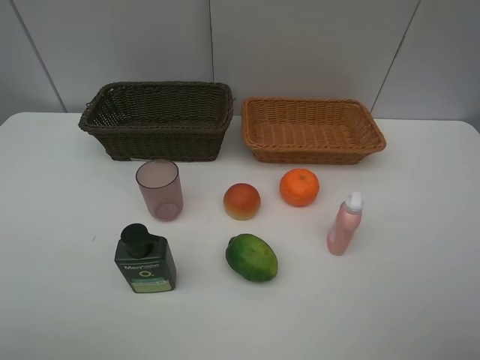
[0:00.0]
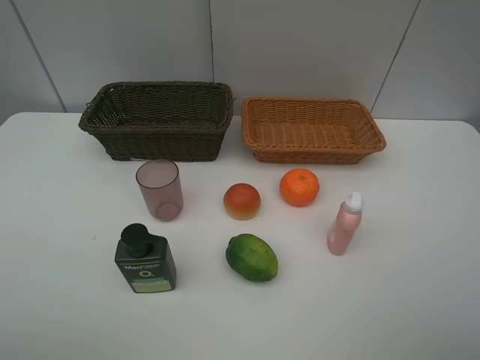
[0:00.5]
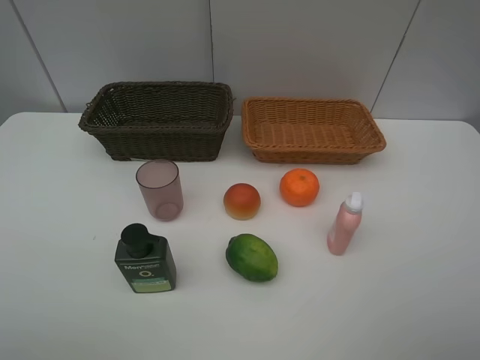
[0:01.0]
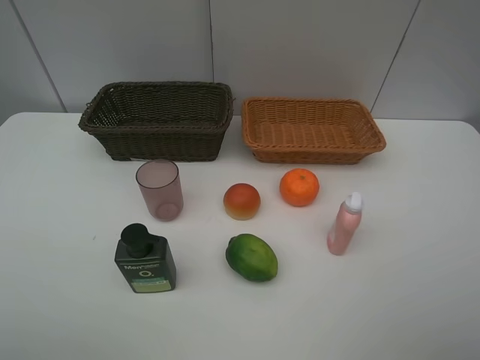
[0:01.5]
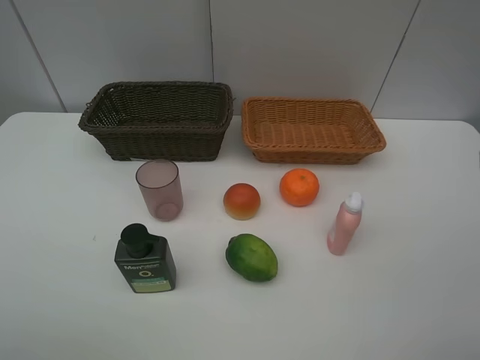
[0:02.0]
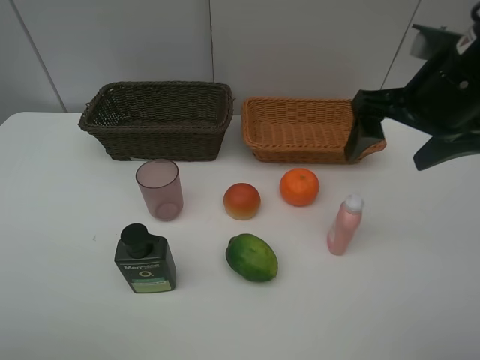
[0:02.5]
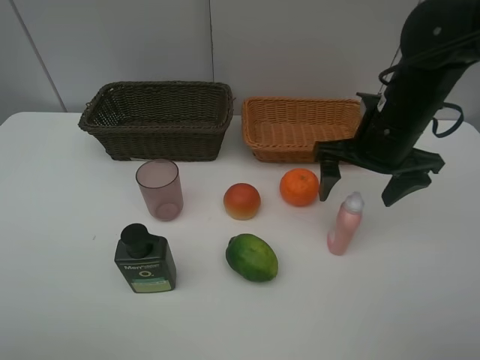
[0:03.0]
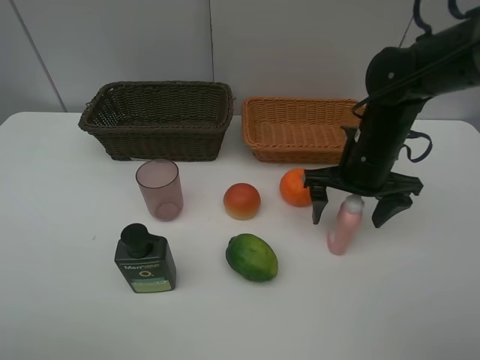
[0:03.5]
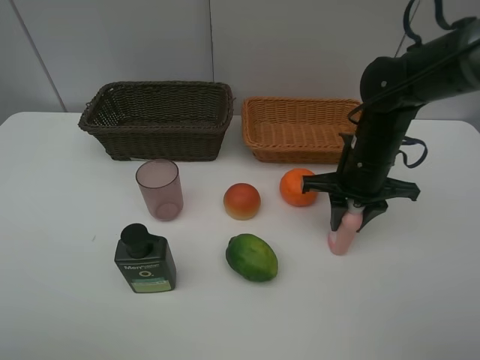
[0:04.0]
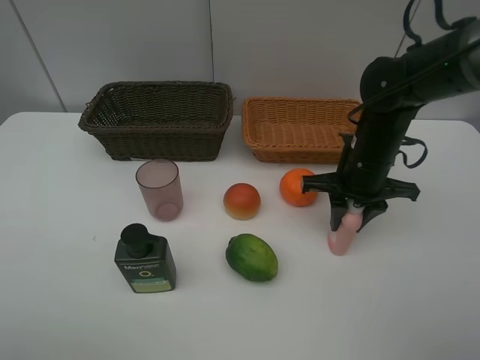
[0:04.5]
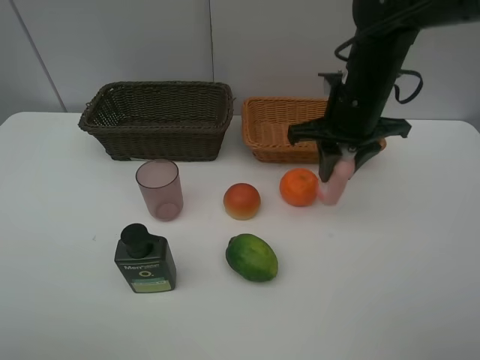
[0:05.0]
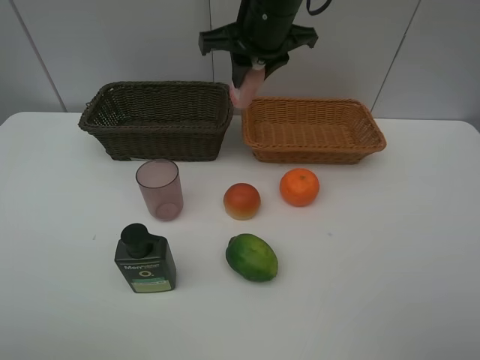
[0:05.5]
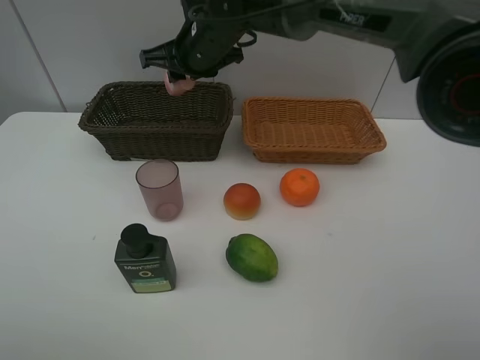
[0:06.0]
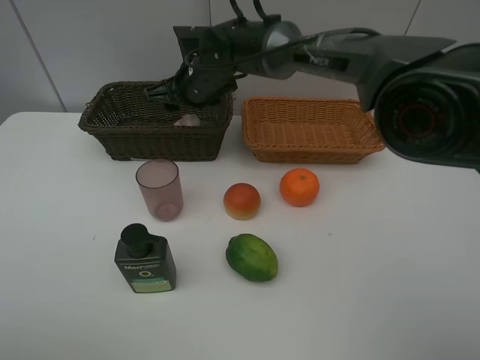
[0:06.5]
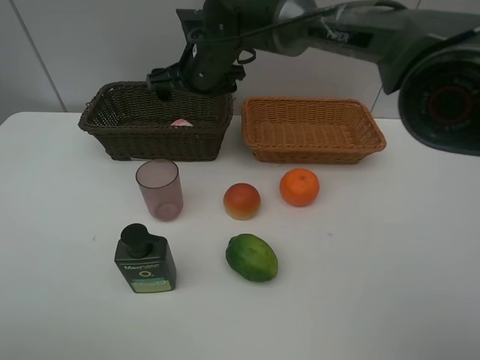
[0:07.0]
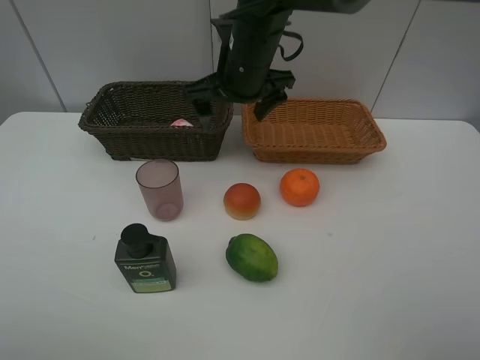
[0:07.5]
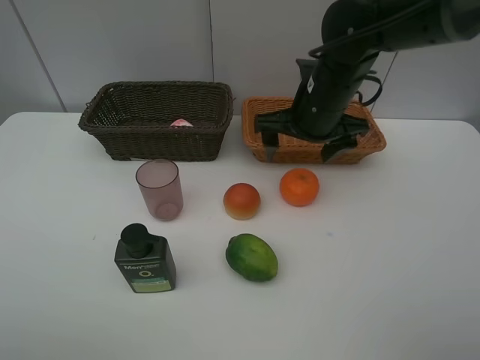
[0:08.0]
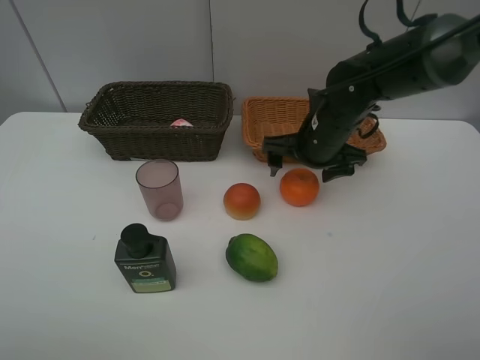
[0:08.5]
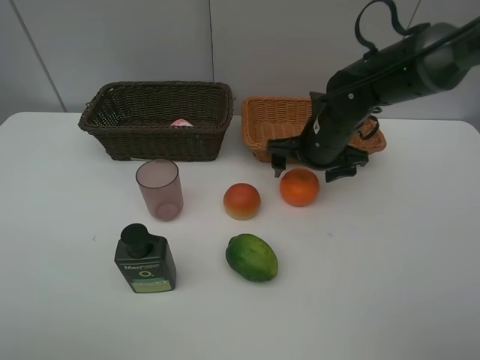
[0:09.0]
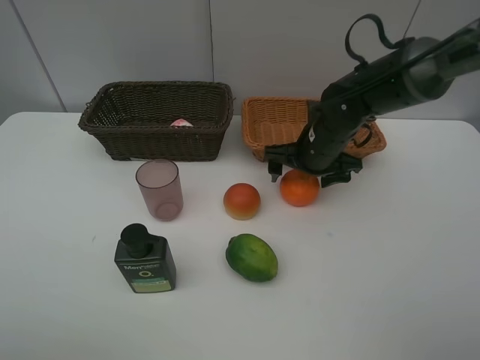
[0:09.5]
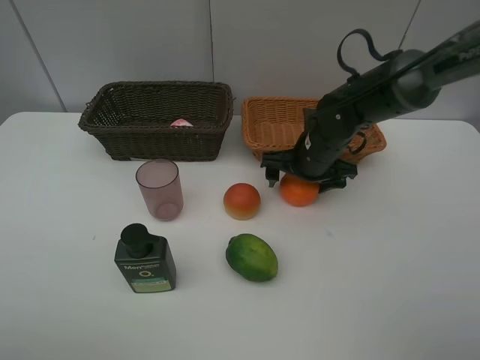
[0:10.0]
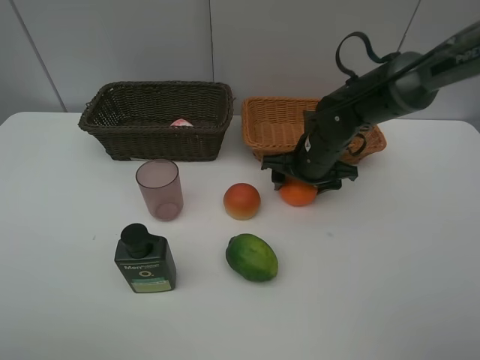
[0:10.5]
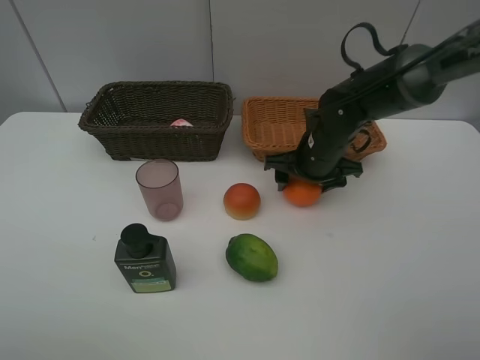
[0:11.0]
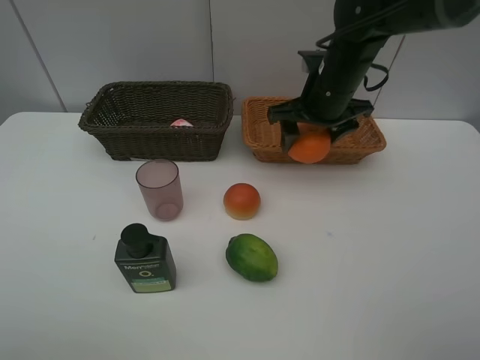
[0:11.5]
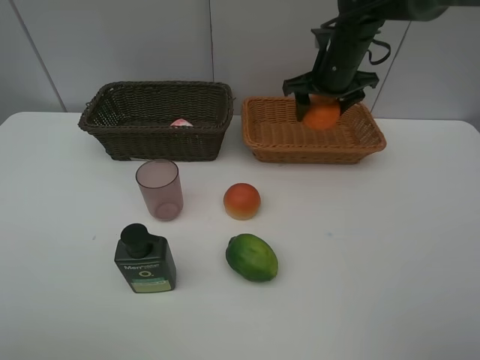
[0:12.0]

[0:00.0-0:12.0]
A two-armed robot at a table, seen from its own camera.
Task of the whole recording: place multiple objects separately in different baskets.
0:02.0 to 0:04.0: The right gripper is displaced downward, forward and to the left by approximately 25 cm, and closes.
0:04.0 to 0:06.0: The right gripper travels to the left and forward by approximately 25 cm.
0:06.0 to 0:08.0: The right gripper moves to the right and backward, about 20 cm, and opens its fingers.
0:08.0 to 0:10.0: The right gripper goes approximately 10 cm downward.
0:10.0 to 0:12.0: The right gripper is displaced forward and upward by about 15 cm.

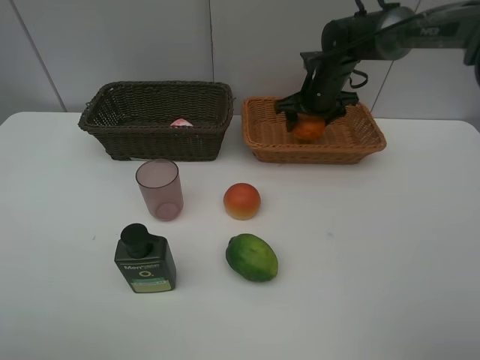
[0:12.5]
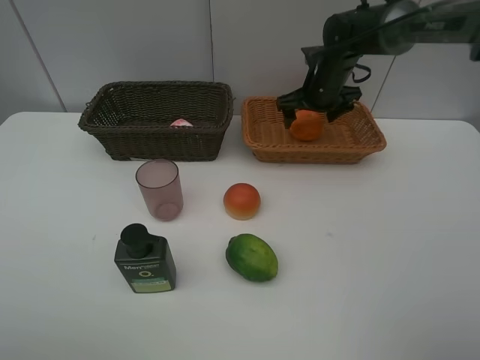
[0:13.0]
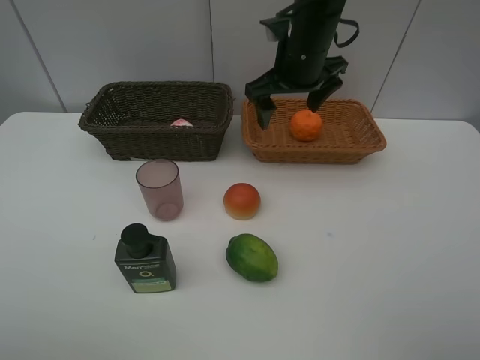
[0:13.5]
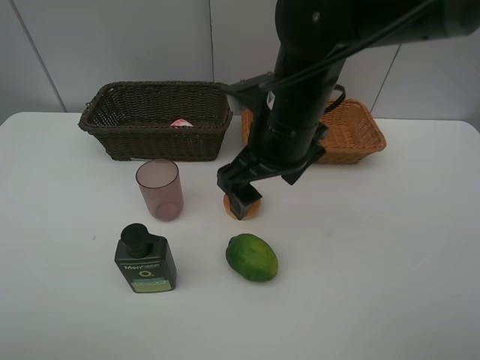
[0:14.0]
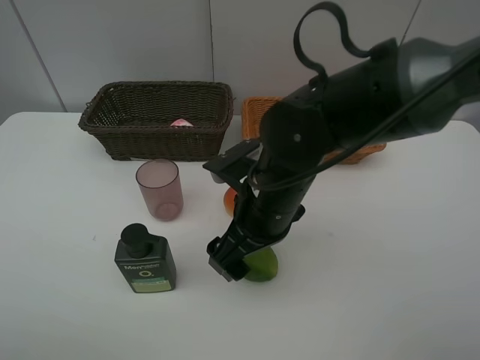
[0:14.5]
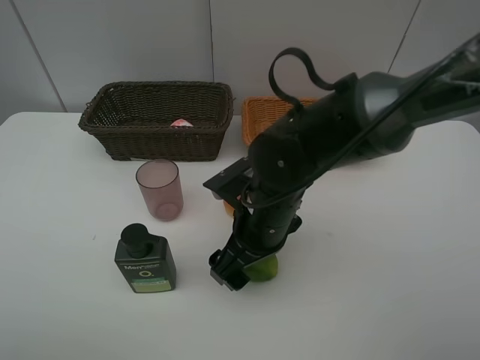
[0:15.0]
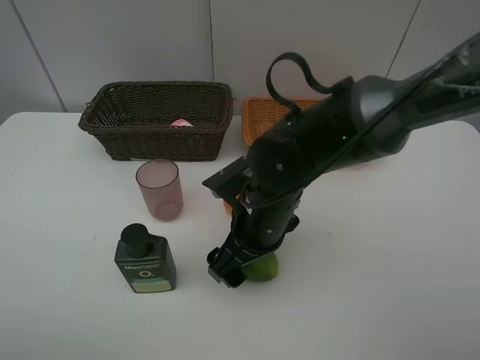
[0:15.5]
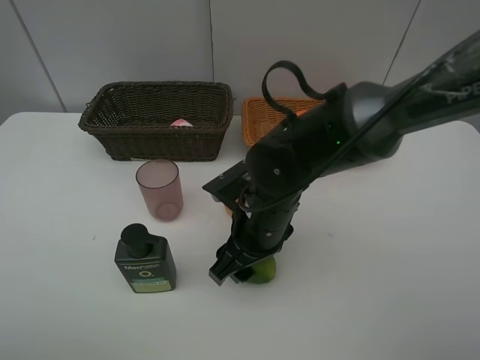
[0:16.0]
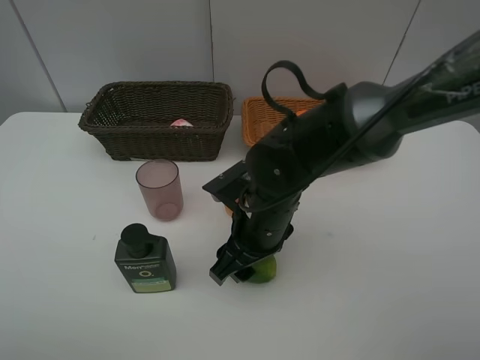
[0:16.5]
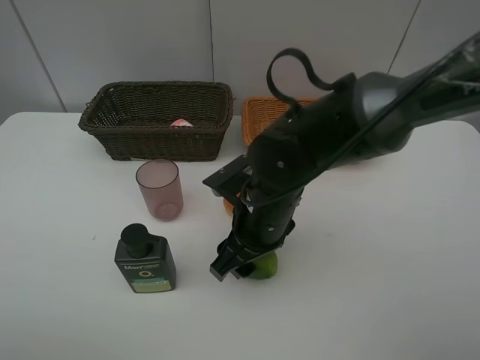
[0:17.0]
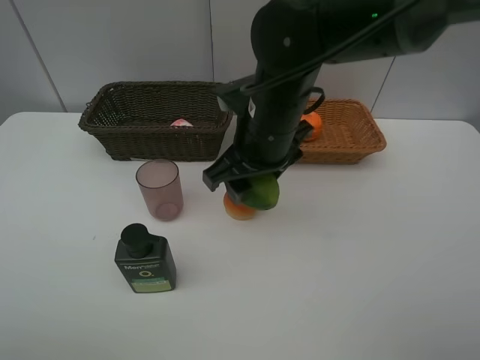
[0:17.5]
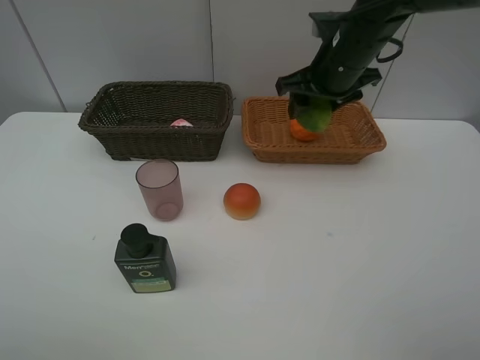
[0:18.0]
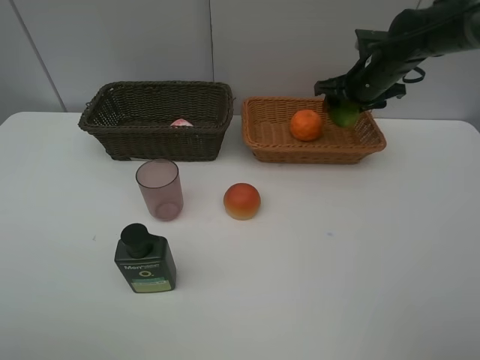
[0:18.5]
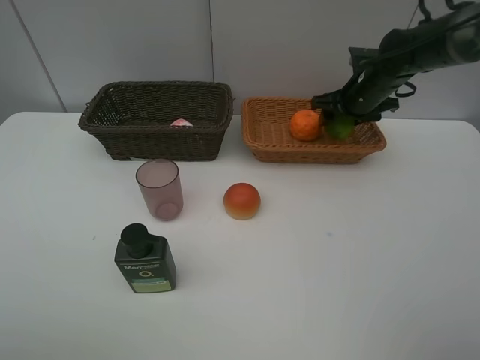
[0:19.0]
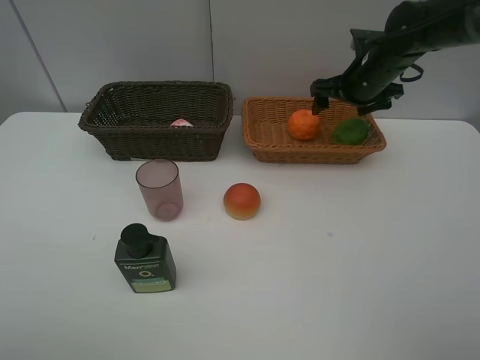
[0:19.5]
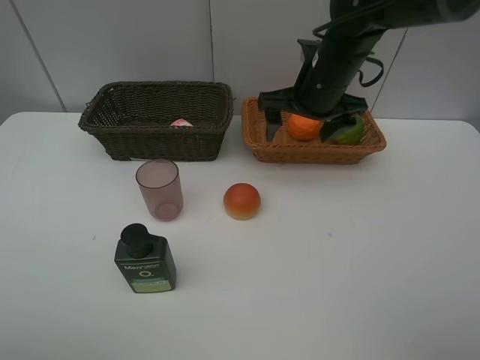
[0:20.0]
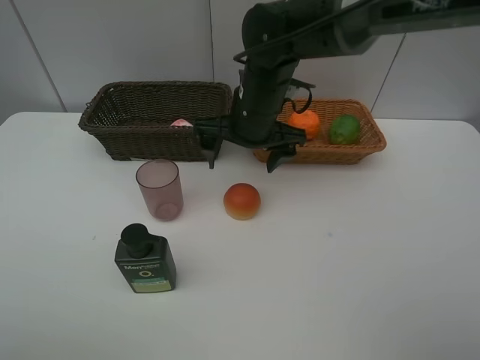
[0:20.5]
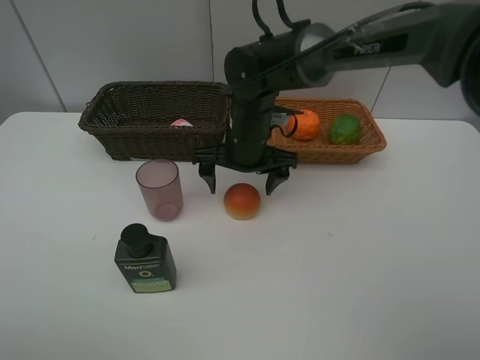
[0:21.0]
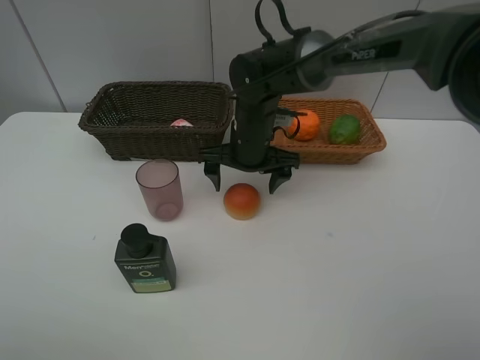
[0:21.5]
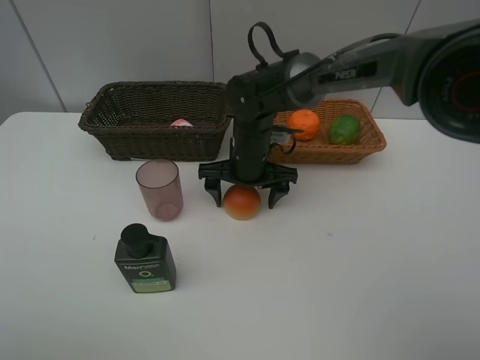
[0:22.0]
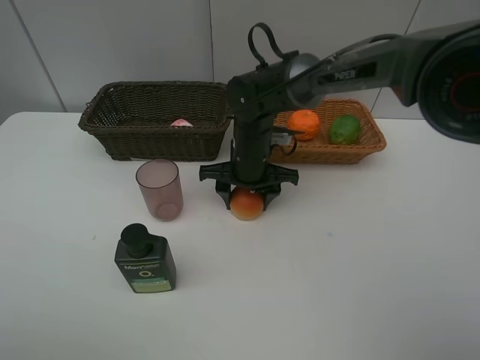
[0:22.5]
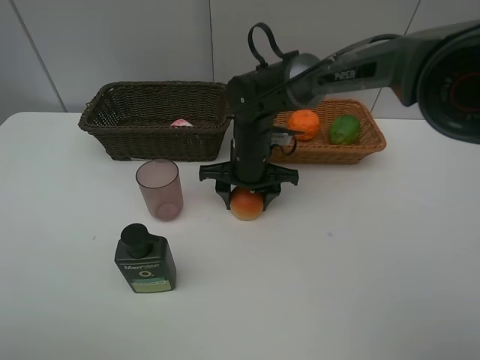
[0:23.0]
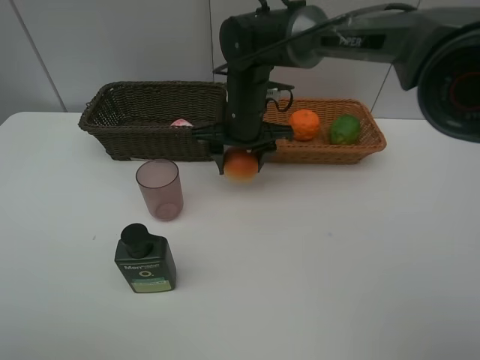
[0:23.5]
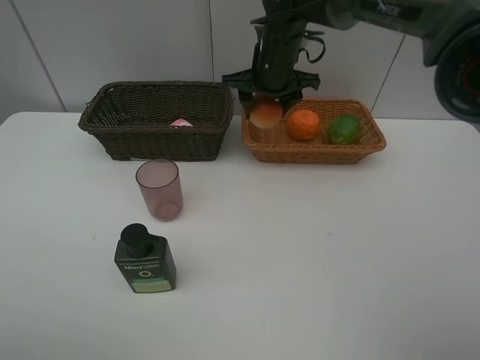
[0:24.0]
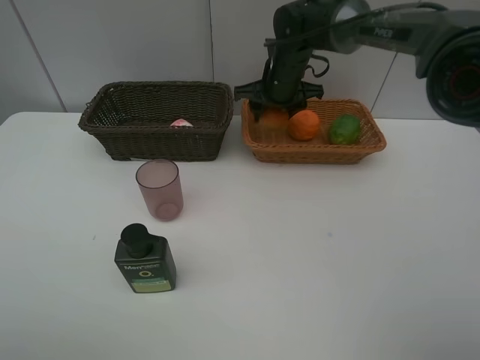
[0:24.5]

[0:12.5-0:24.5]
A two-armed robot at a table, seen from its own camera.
Task of the whole recording: place multiple objects separately in different baskets.
0:12.5 to 0:14.5: The right gripper travels backward and to the left by some 30 cm.
0:14.5 to 0:16.5: The right gripper closes up.
0:16.5 to 0:18.5: The right gripper is displaced forward and to the right by approximately 30 cm.
0:18.5 to 0:20.5: The right gripper goes about 20 cm to the left and backward, and opens.
0:20.5 to 0:22.5: The right gripper travels downward by approximately 10 cm, and closes up.
0:22.5 to 0:24.5: The right gripper moves forward, upward and to the right, some 15 cm.

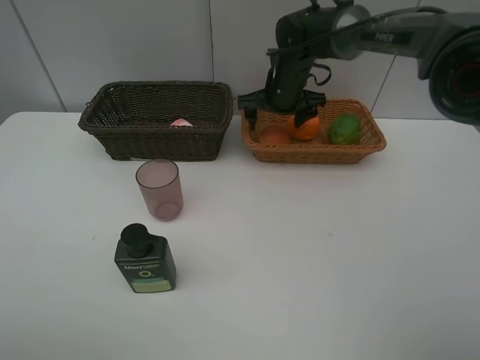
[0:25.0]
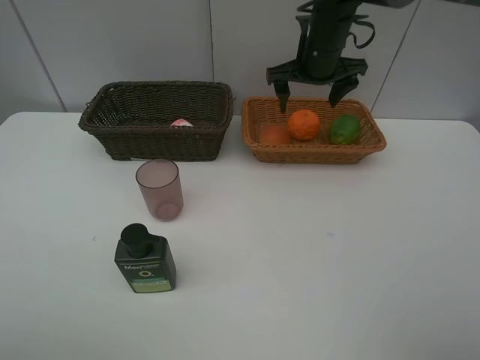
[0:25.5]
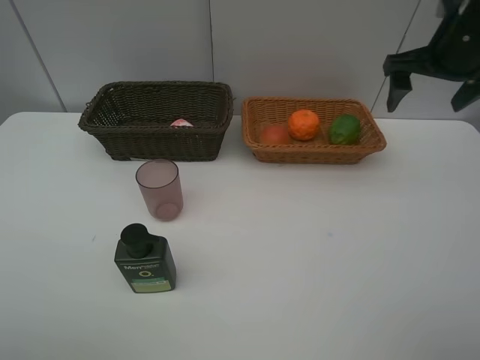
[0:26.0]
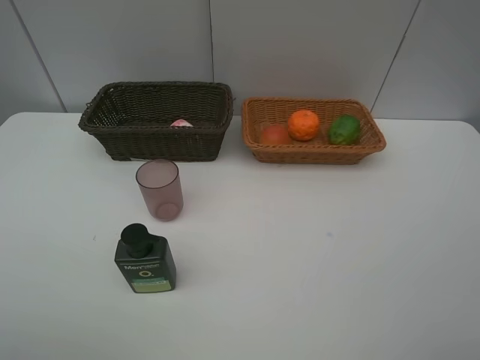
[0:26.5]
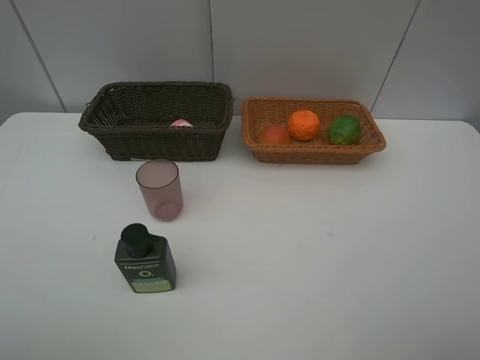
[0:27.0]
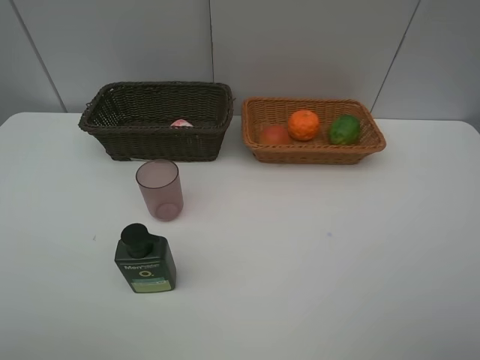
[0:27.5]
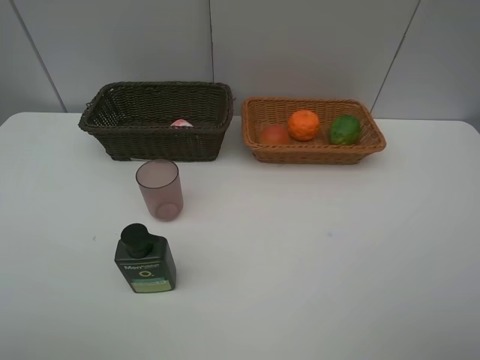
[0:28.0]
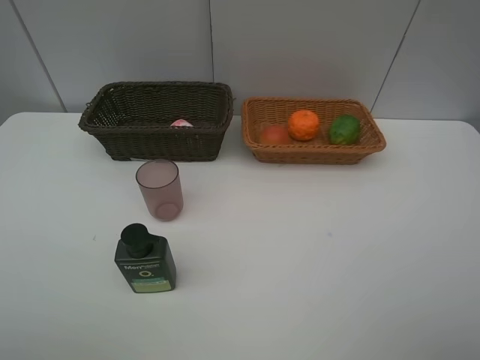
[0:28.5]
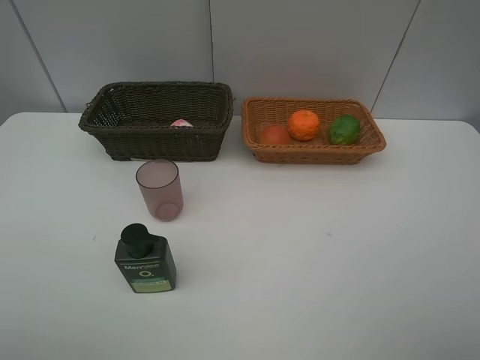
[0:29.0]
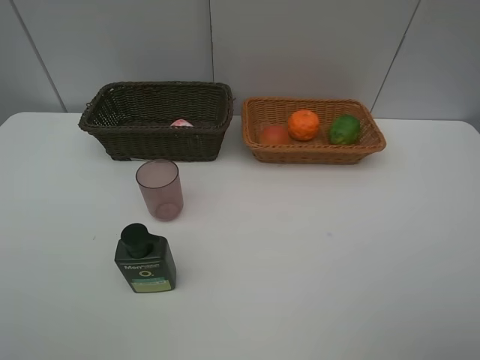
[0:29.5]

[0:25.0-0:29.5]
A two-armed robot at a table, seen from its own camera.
Task of the whole recording: place multiple objects separately in different baskets.
0:25.0 to 0:27.0: The right gripper heads backward and to the right, covering some 50 cm.
